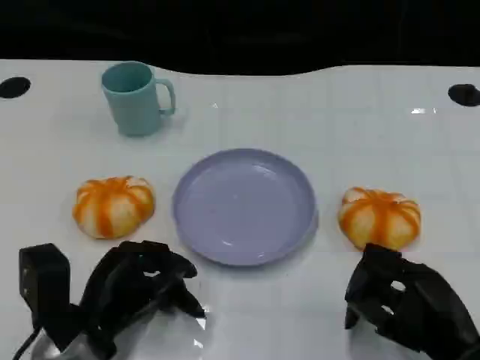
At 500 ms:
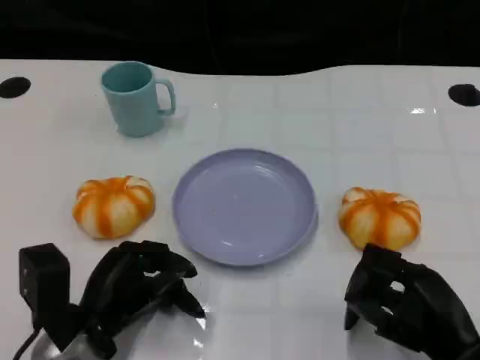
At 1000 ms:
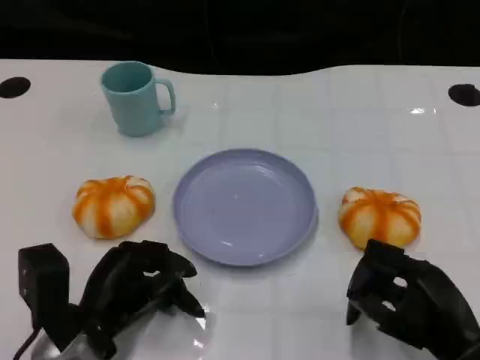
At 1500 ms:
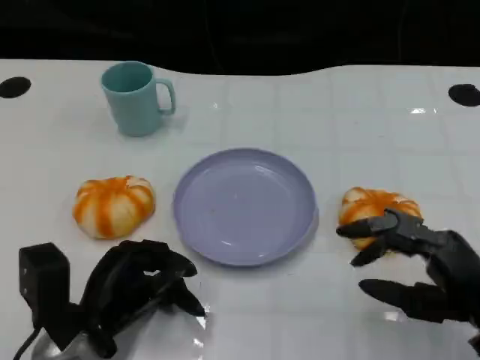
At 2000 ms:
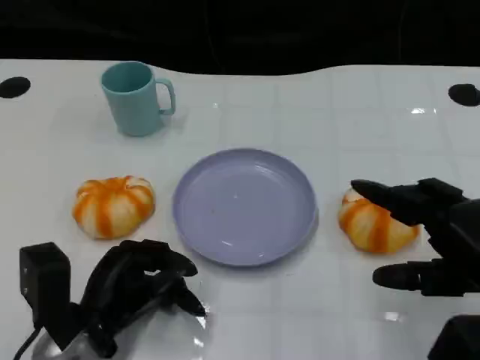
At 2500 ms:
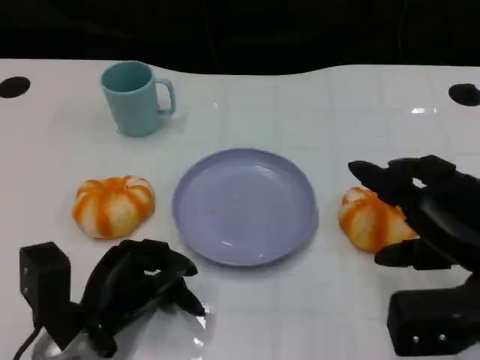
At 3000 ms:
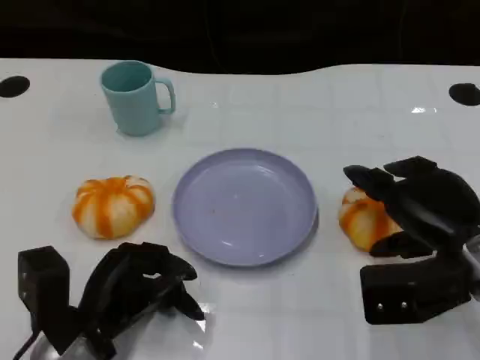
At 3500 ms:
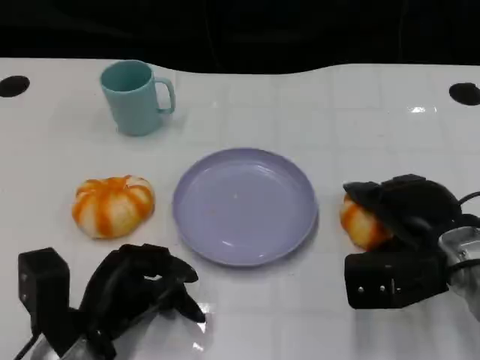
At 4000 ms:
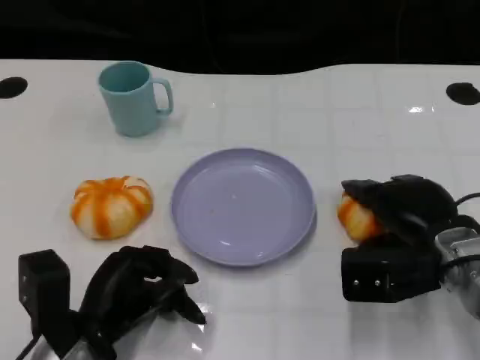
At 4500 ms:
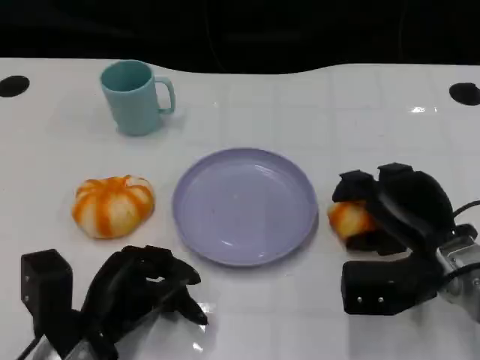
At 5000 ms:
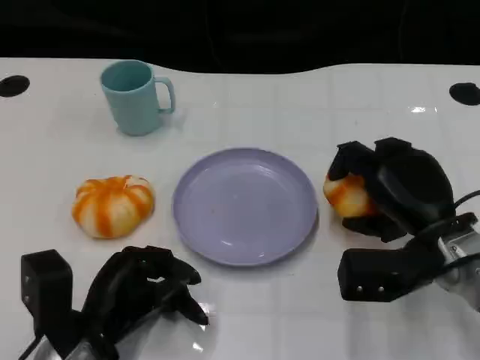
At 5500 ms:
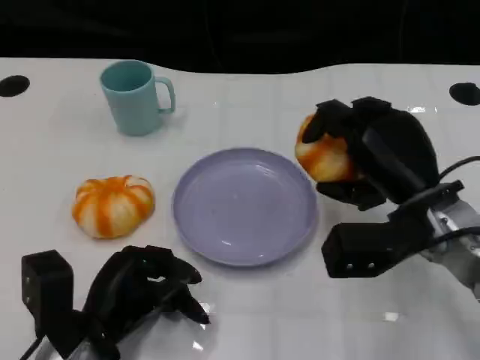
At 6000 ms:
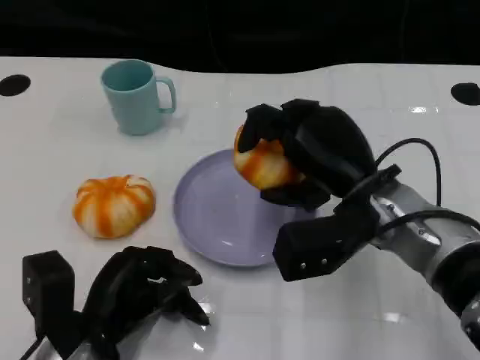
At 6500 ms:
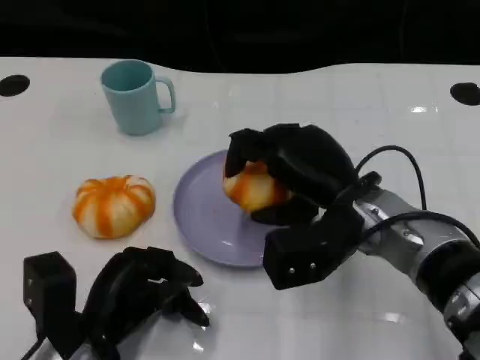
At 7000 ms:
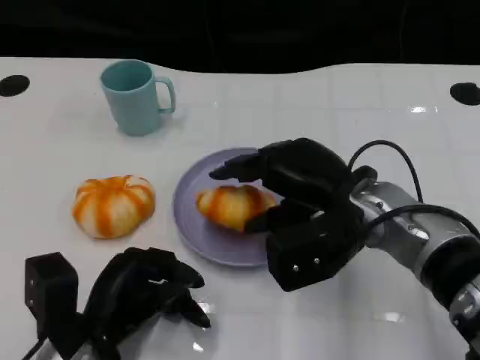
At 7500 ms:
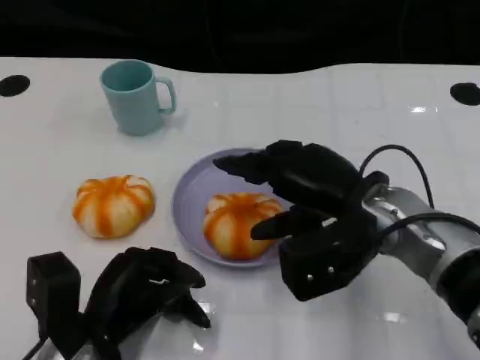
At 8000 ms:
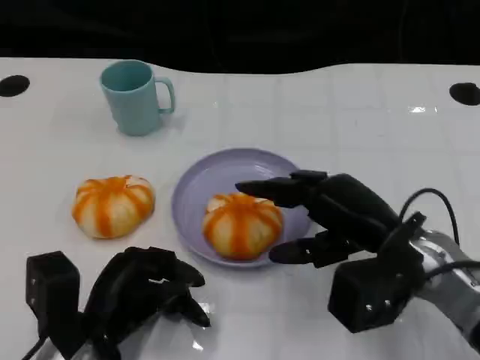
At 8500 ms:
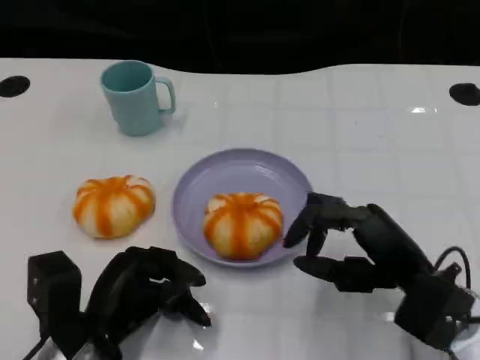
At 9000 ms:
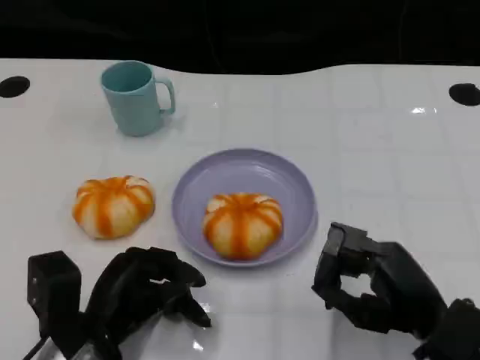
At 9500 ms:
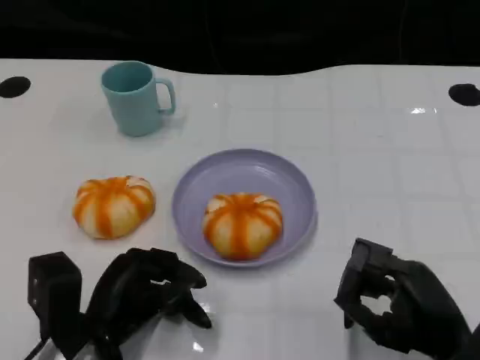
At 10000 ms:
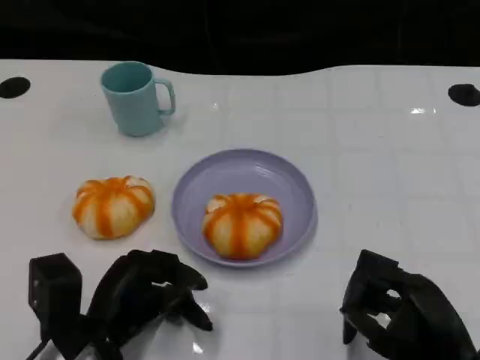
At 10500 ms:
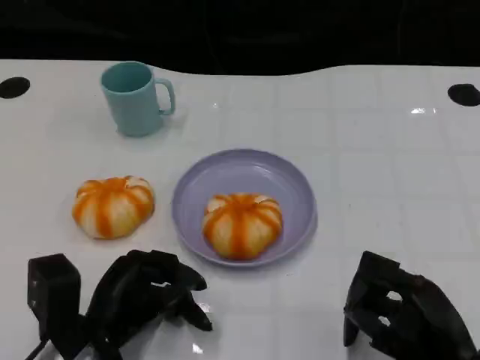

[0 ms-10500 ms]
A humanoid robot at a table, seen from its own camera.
Task of the whole recording: Grasp the bread from the table and place it into the plate.
0 ms to 2000 ms: The right hand moves upward, approximately 10 cm.
2000 ms to 4000 ms: The right hand heads forward, downward and to the left, covering some 10 cm.
4000 ms to 6500 ms: The right hand heads to the left, covering roughly 10 cm.
6500 ms to 8500 ms: The right hand goes roughly 10 cm to the right and backward.
8500 ms to 10500 ms: The right hand heads backward, covering roughly 5 cm.

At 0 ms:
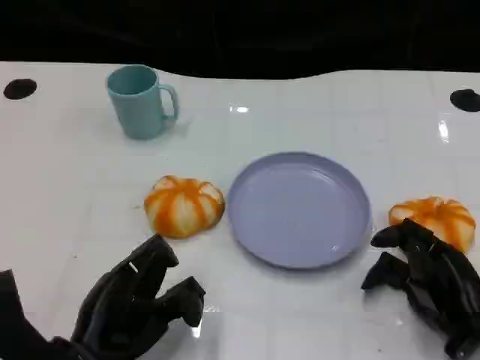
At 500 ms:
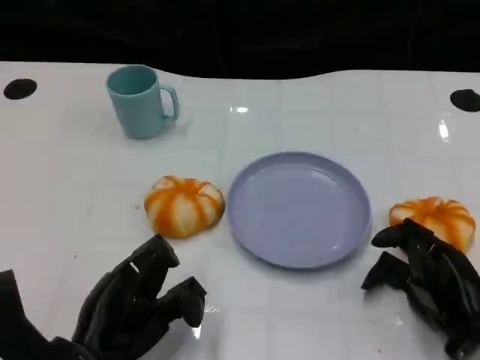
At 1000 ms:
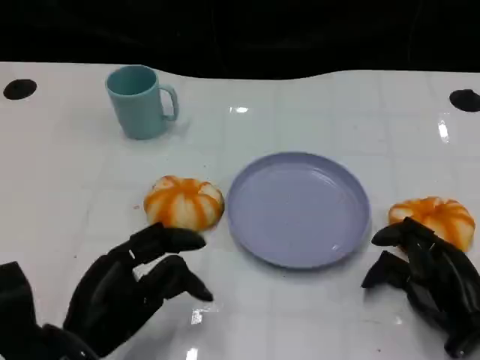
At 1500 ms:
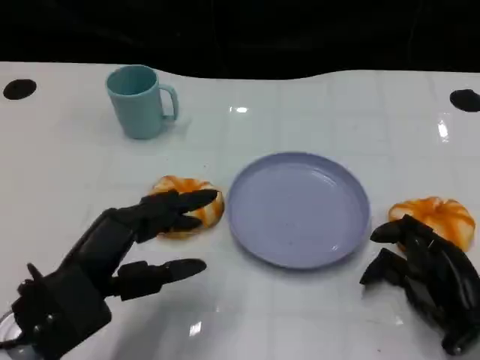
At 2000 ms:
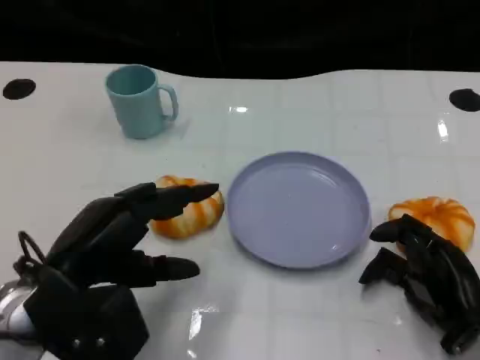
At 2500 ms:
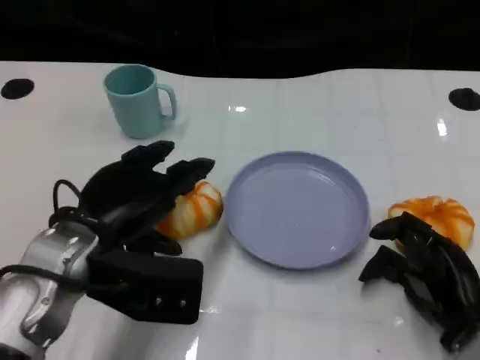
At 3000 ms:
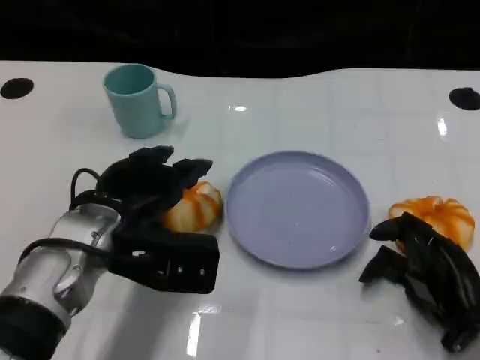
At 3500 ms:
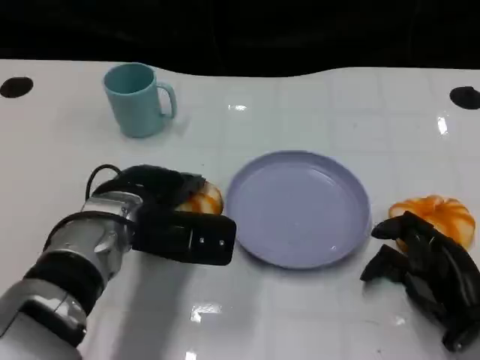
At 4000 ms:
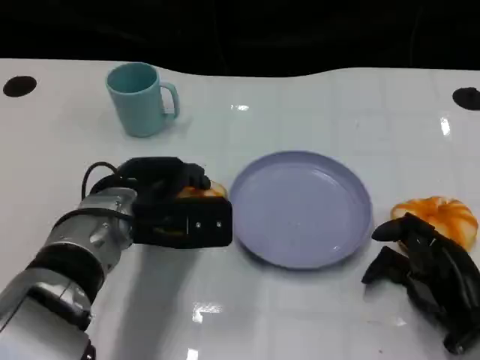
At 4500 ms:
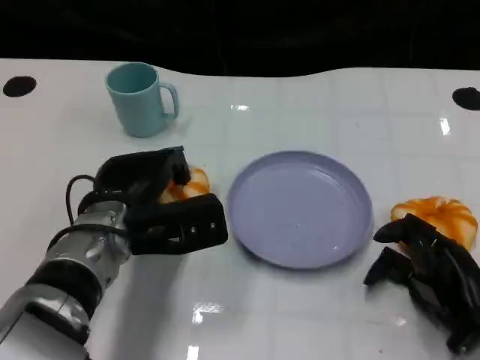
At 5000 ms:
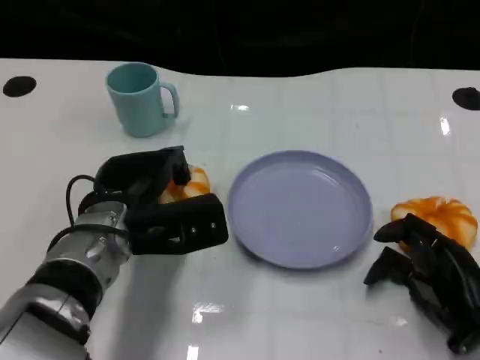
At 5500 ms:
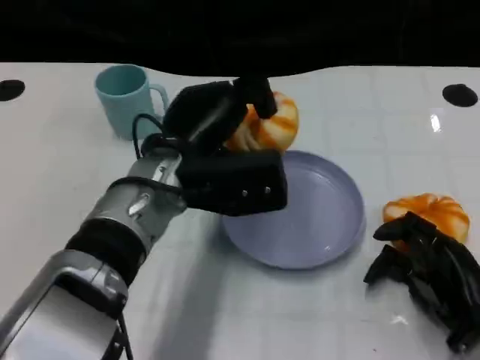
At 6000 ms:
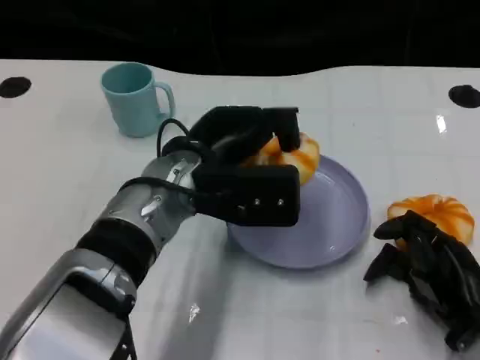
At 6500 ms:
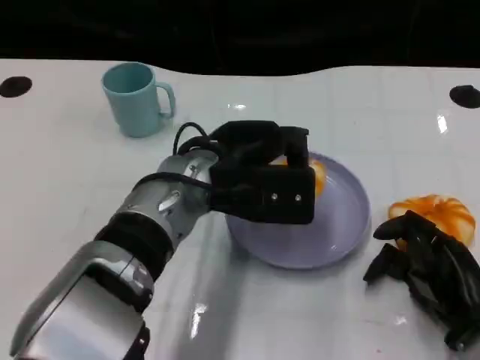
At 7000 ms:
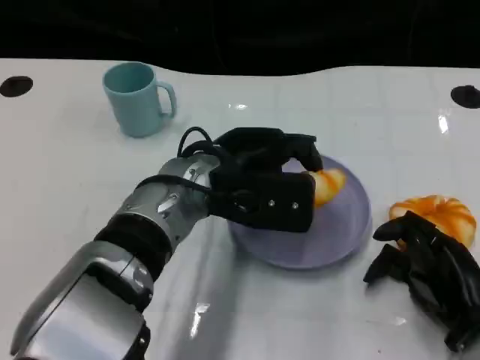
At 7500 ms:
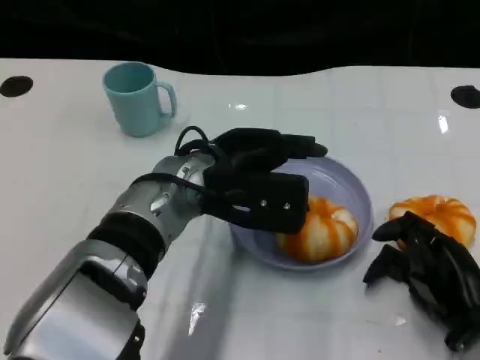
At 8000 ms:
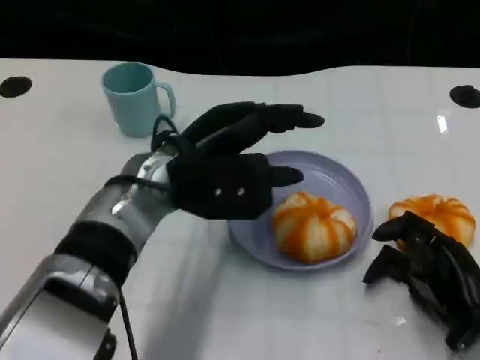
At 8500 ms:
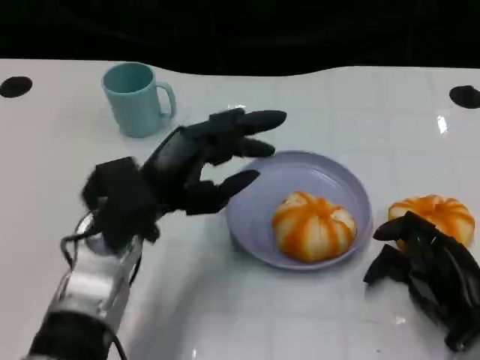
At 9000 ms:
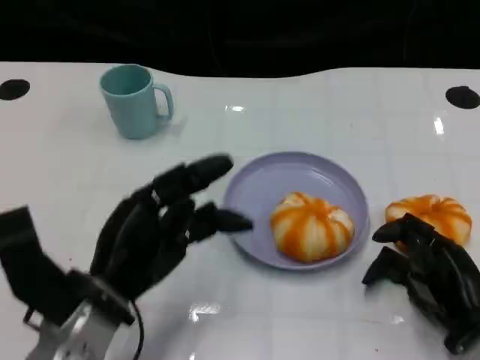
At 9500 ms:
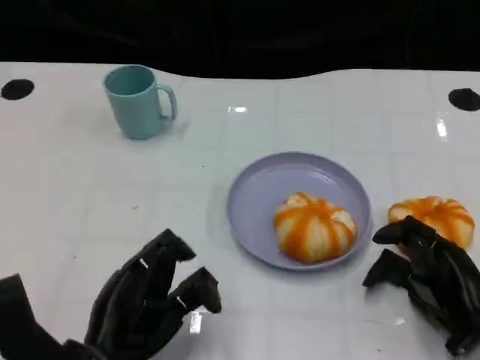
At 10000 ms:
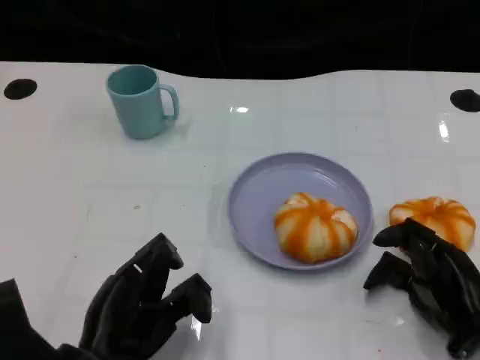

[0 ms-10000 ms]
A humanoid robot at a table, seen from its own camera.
Task of the whole recording: Grasp the bread from the table and place it into the plate.
0 ms to 2000 ms: The left hand shifts approximately 10 cm upward.
2000 ms to 4000 ms: The left hand shifts some 10 cm forward and to the right.
4000 ms to 6000 ms: The left hand shifts roughly 5 cm to the right.
6000 ms to 8000 ms: The hands make only small movements.
8000 ms to 10000 ms: The left hand moves backward, downward and to the left, about 20 cm.

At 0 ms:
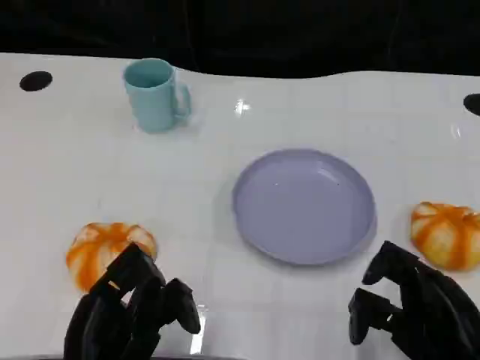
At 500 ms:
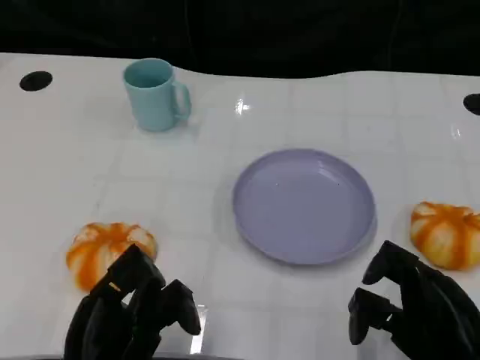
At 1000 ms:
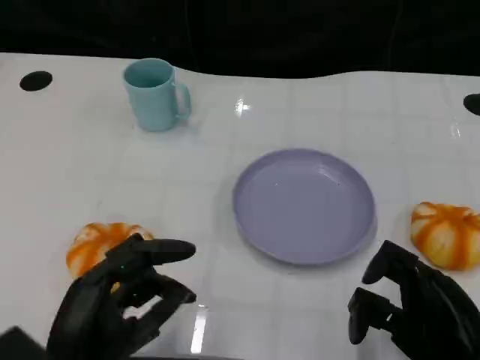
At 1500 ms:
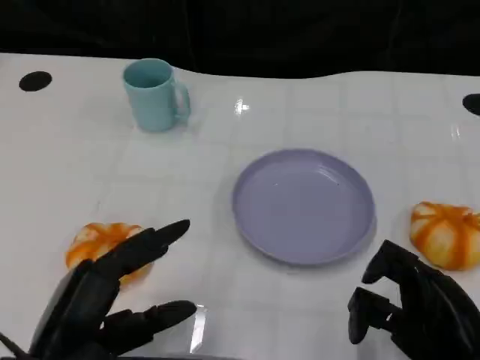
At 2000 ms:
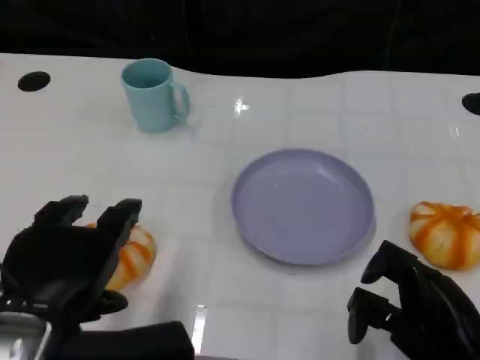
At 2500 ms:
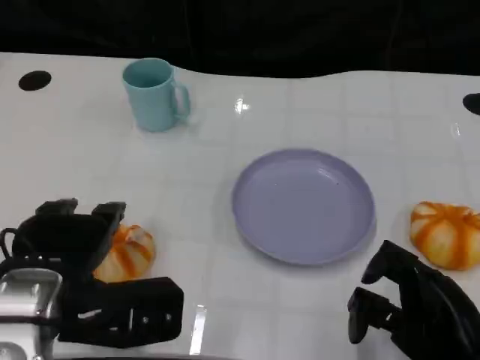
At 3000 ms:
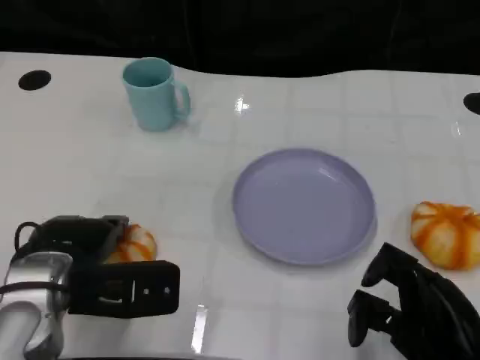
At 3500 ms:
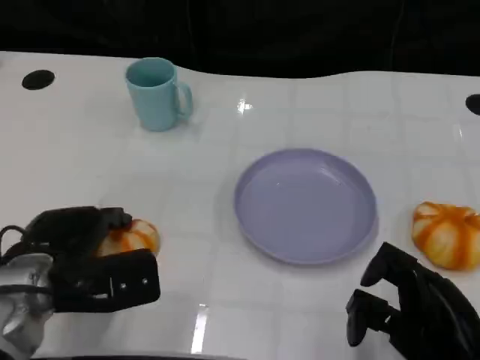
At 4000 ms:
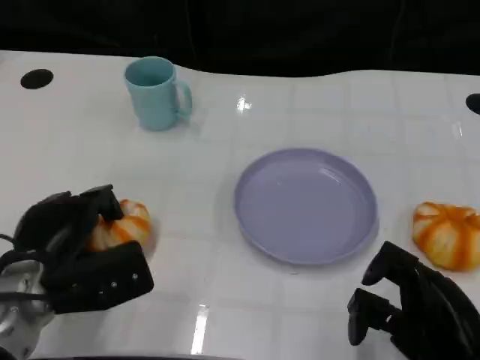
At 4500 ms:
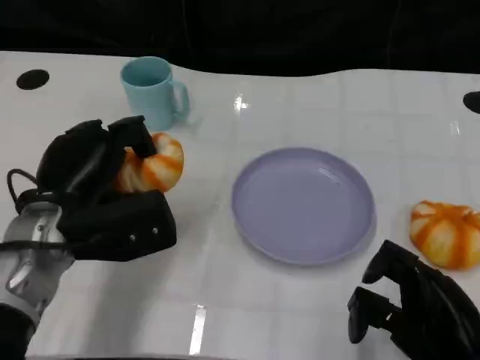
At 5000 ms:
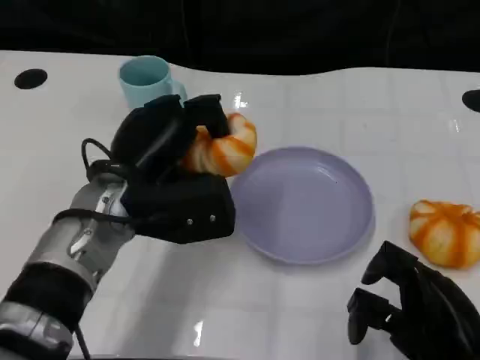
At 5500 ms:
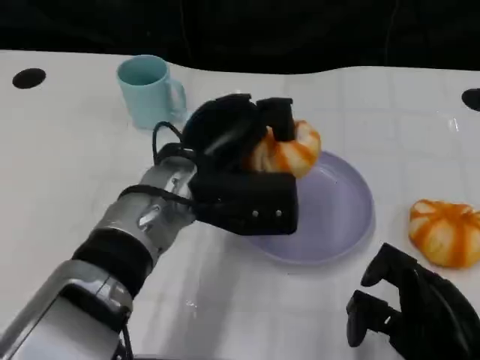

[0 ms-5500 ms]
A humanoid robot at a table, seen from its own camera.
Task of the whole recording: Grasp the bread from the table and place it into the plate.
0 ms to 2000 ms: The left hand moves upward, approximately 10 cm.
2000 ms to 3500 ms: The left hand is displaced forward and downward by some 15 cm.
3500 ms to 5500 ms: The left hand is displaced to the right and upward by approximately 15 cm.
